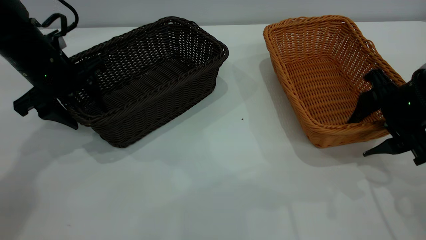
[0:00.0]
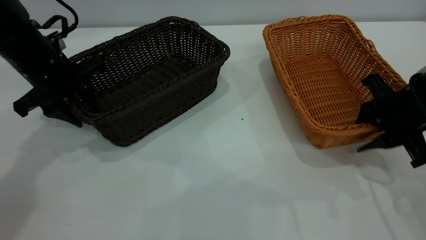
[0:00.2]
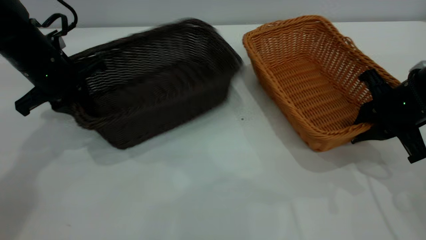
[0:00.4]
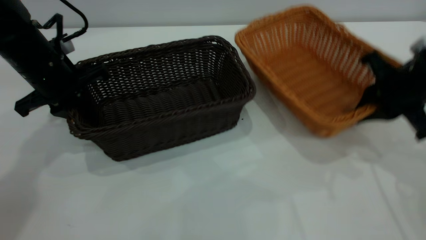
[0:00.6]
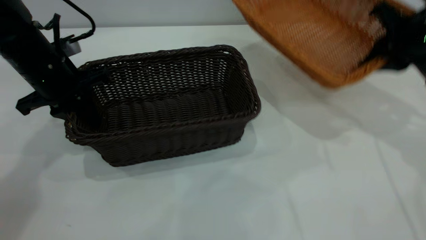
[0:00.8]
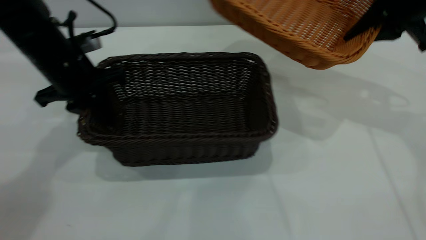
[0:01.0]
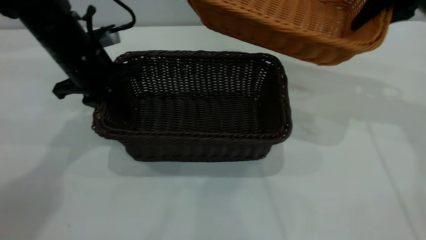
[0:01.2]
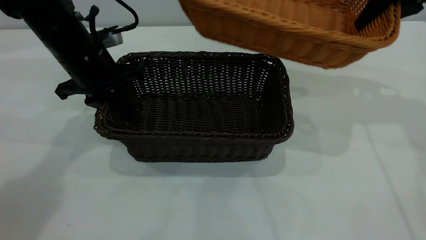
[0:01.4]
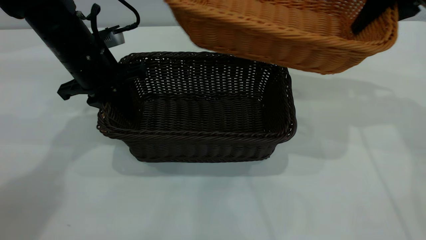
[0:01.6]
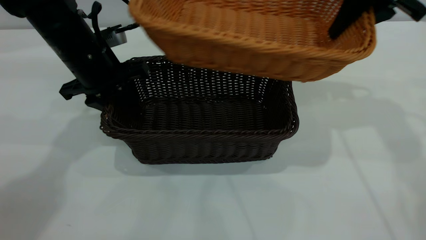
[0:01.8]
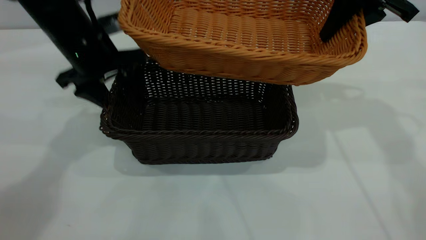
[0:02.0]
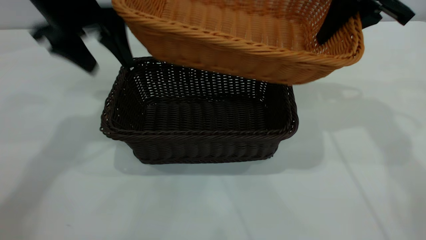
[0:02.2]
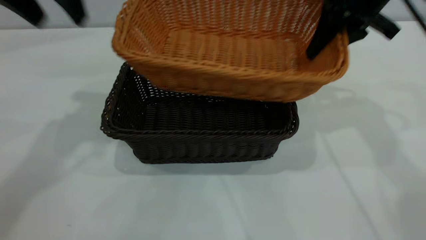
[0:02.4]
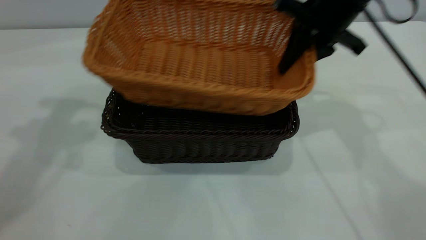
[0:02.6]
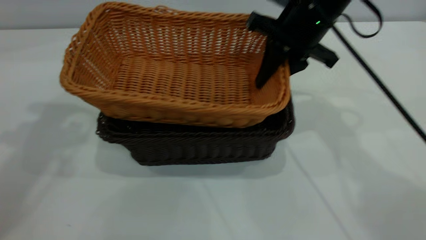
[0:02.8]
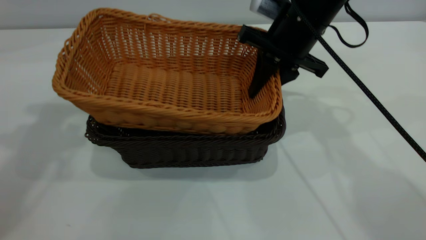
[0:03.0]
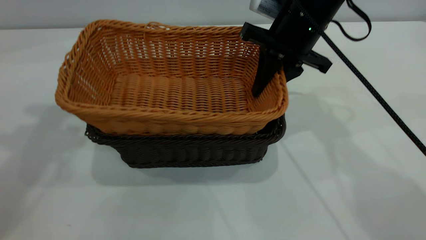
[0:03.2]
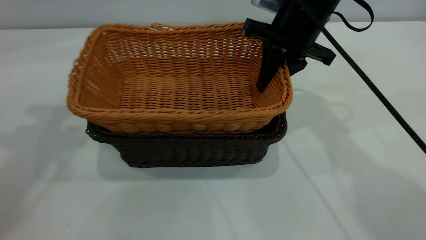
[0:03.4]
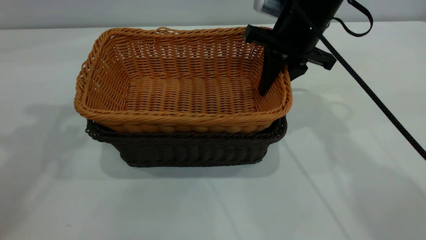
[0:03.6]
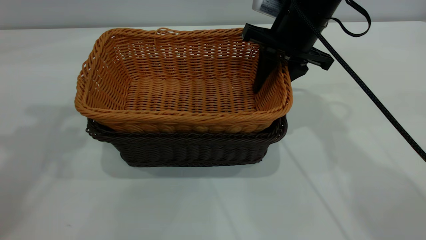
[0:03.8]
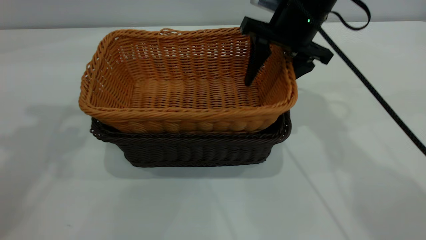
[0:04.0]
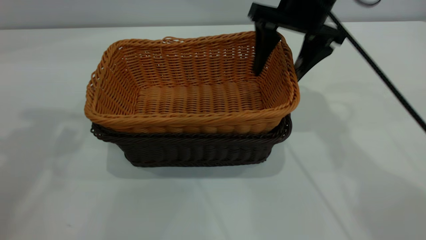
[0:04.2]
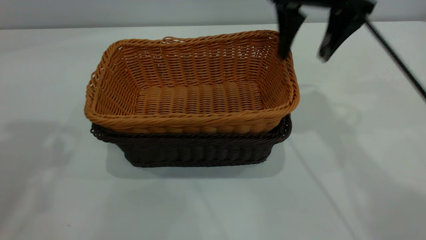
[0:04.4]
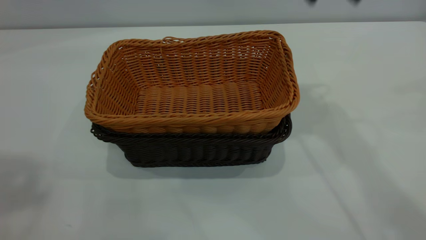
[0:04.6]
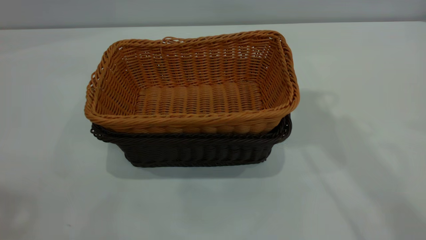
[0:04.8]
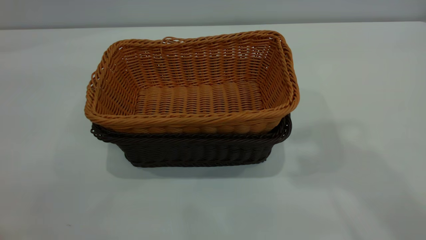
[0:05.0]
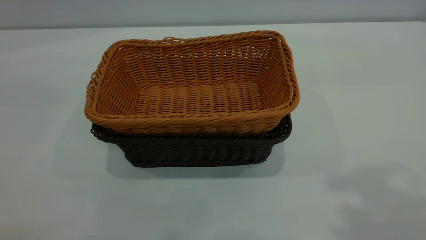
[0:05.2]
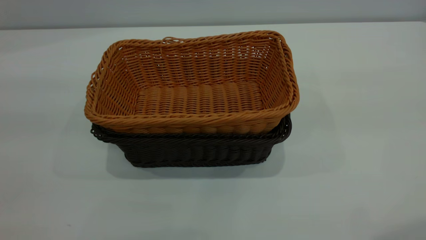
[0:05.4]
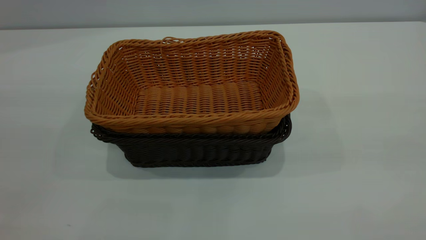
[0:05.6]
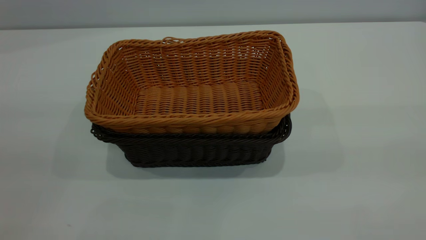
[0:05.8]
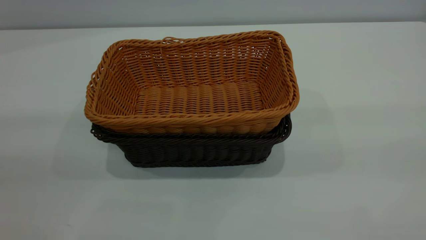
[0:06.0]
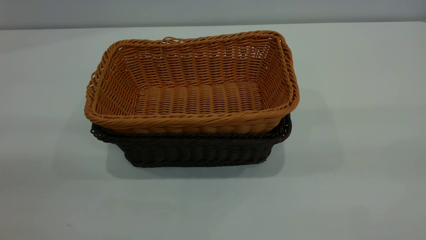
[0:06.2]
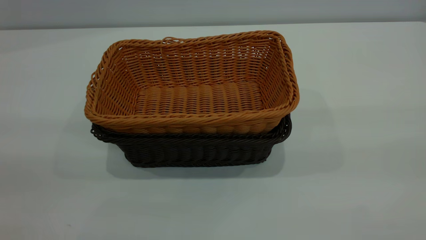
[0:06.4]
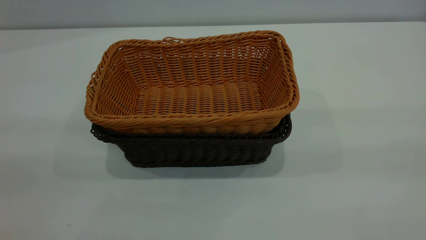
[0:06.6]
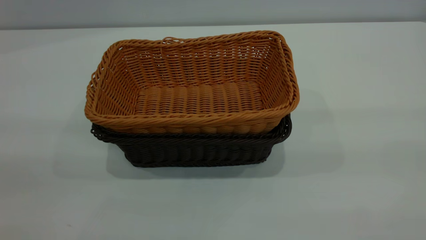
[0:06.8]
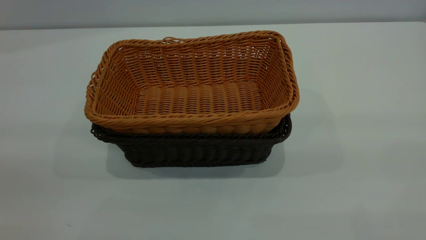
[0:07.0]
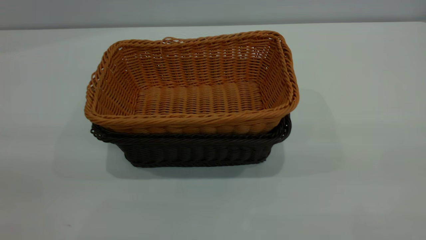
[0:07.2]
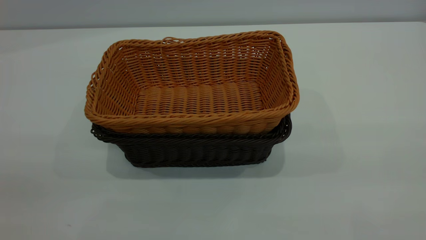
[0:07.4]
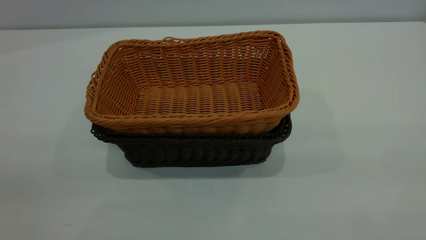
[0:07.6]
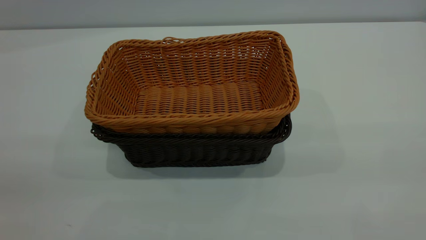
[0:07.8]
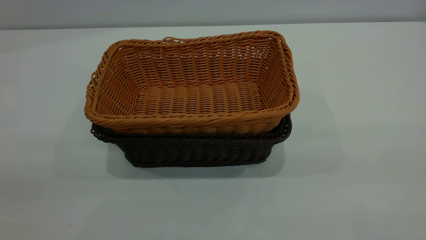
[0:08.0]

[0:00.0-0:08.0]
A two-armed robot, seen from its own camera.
Task of the whole recording: the left gripper grasp the black basket and place it in the center of the table, the right gripper grasp the brown basket and place it inside the black one.
Step, 0:00.8 to 0:02.0: Move the dark basket to the center of view.
Step, 0:02.2 to 0:04.4: Place the light basket on the dark basket.
0:00.0 to 0:01.6: The right gripper is displaced upward and forward by approximately 20 cm, and closes its fingers. The left gripper shifts some 5 cm to the right, and closes its fingers.
0:01.6 to 0:03.2: The right gripper goes about 15 cm to the left and downward, while the left gripper heads upward, covering some 25 cm, and opens.
0:03.2 to 0:04.8: The left gripper heads backward and upward, covering about 20 cm; the right gripper goes approximately 25 cm upward, and opens.

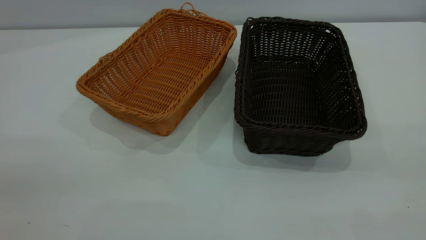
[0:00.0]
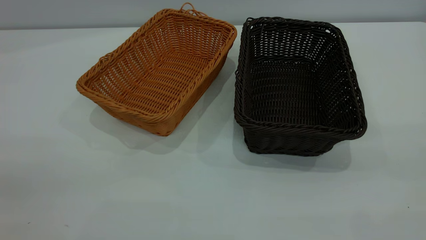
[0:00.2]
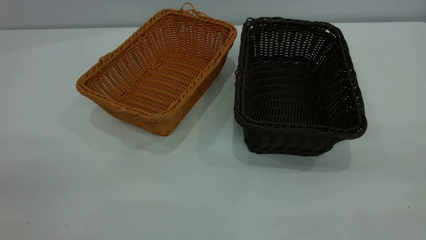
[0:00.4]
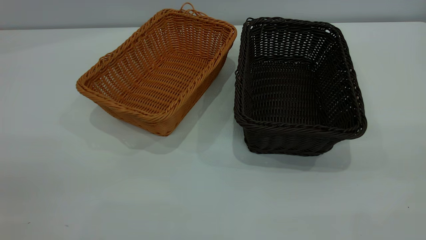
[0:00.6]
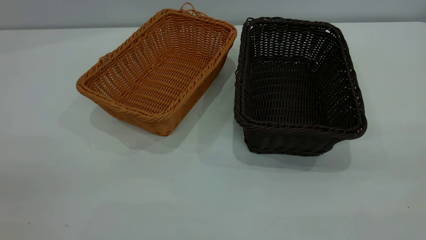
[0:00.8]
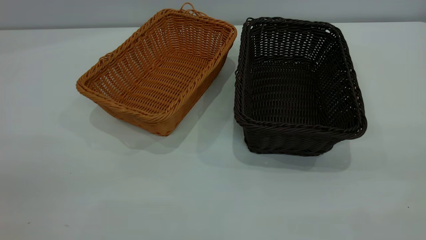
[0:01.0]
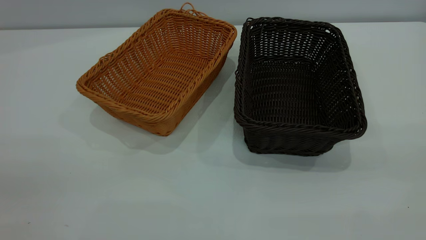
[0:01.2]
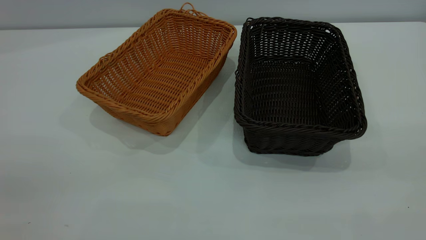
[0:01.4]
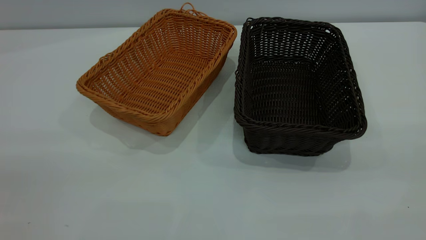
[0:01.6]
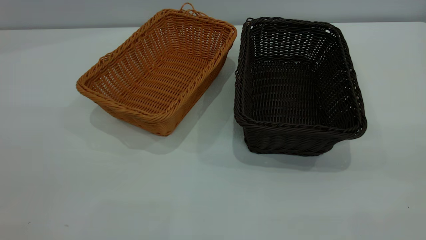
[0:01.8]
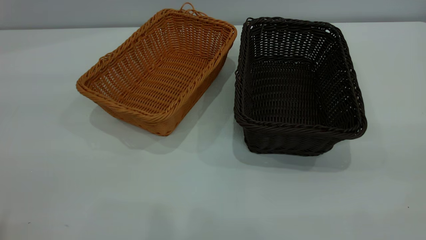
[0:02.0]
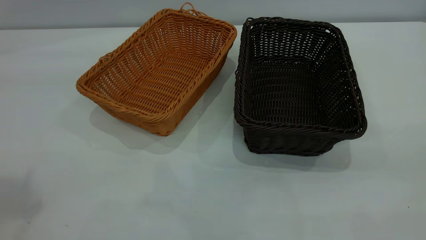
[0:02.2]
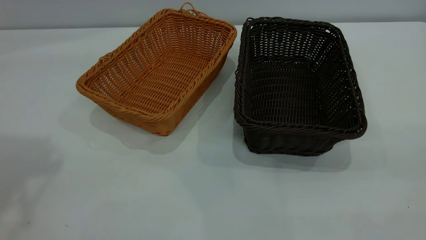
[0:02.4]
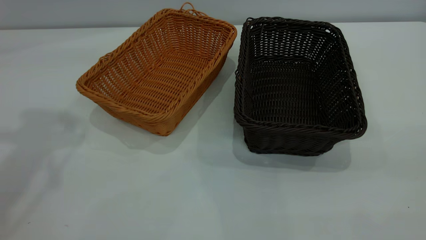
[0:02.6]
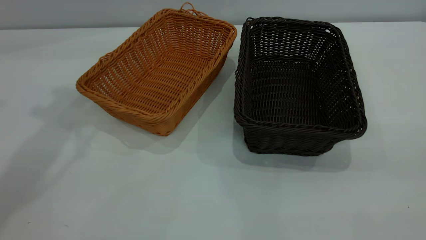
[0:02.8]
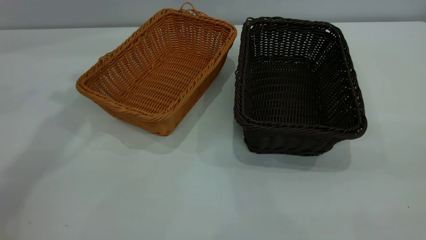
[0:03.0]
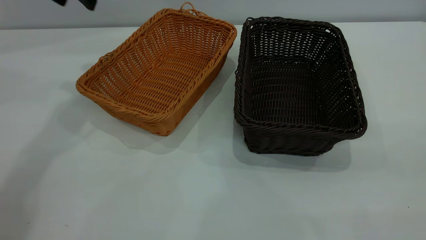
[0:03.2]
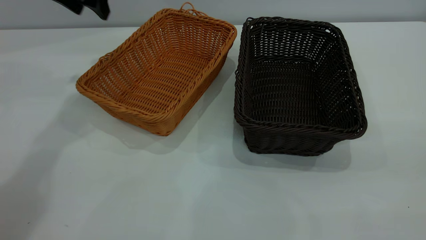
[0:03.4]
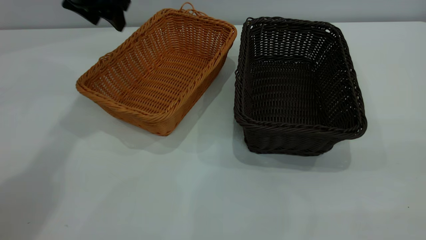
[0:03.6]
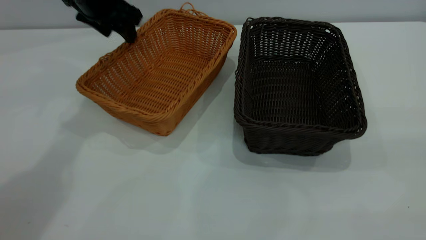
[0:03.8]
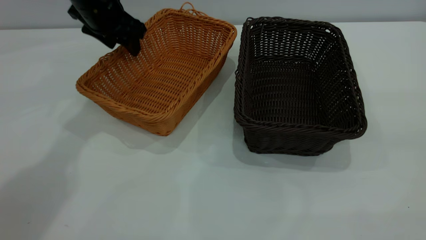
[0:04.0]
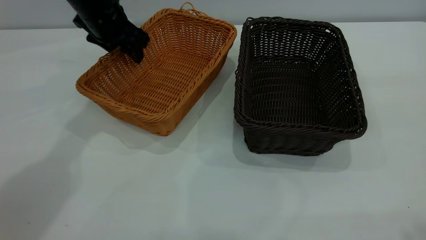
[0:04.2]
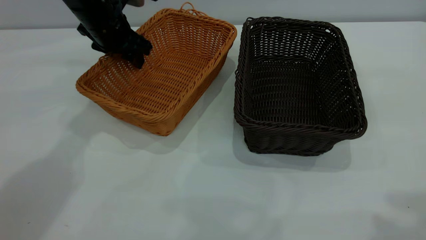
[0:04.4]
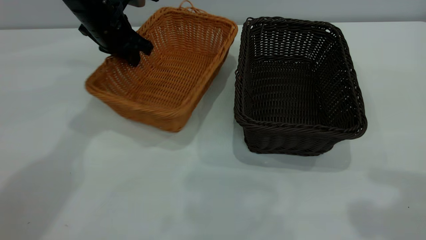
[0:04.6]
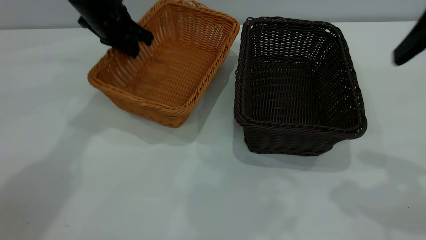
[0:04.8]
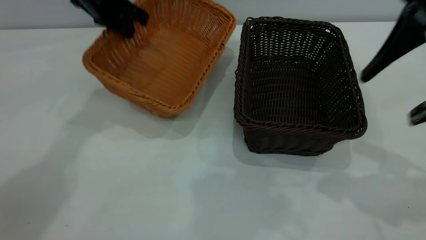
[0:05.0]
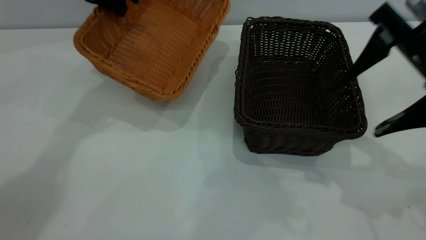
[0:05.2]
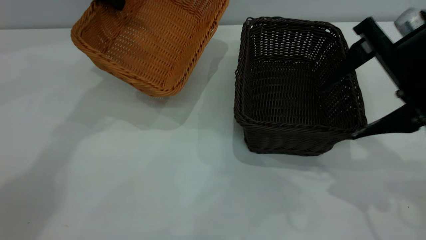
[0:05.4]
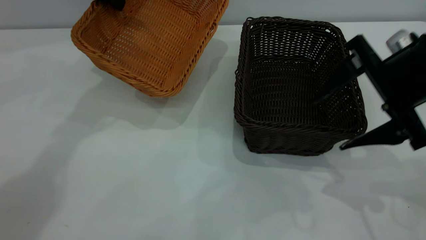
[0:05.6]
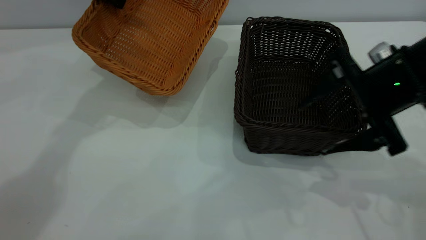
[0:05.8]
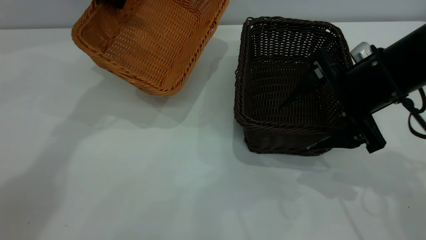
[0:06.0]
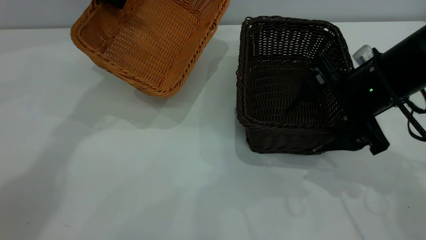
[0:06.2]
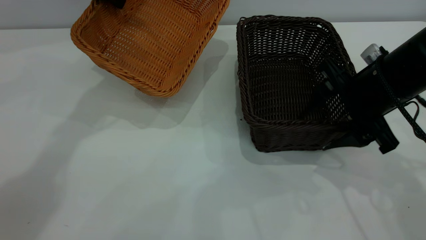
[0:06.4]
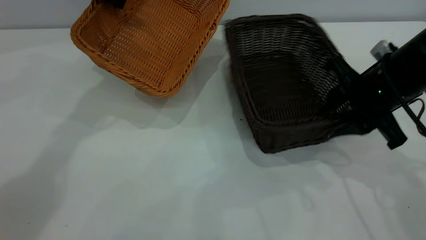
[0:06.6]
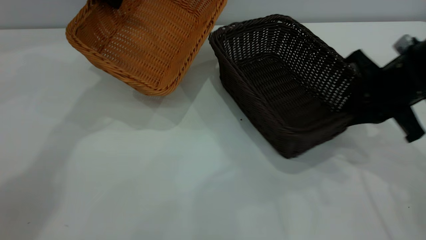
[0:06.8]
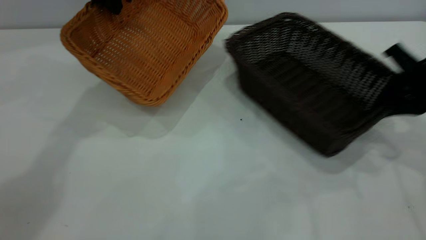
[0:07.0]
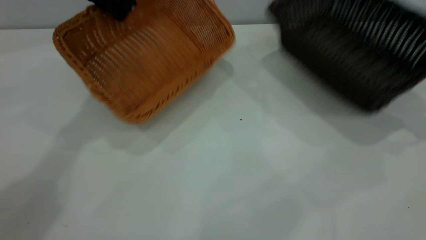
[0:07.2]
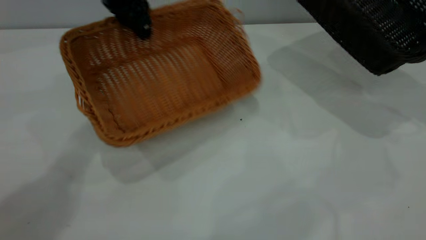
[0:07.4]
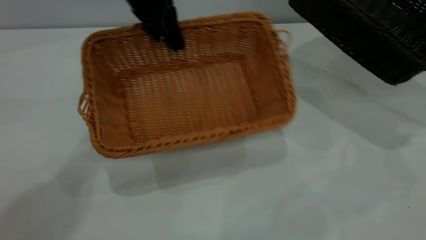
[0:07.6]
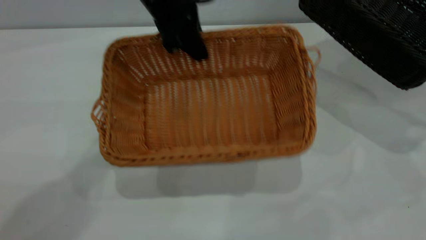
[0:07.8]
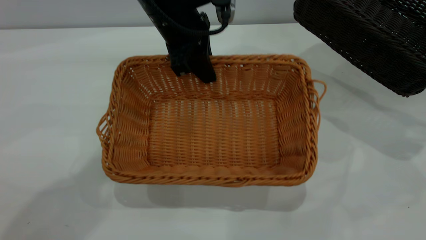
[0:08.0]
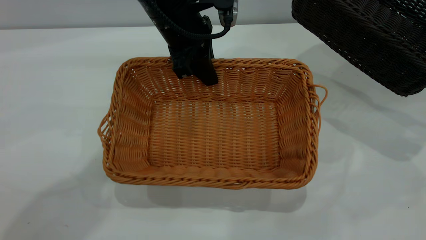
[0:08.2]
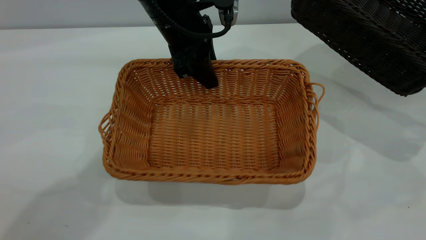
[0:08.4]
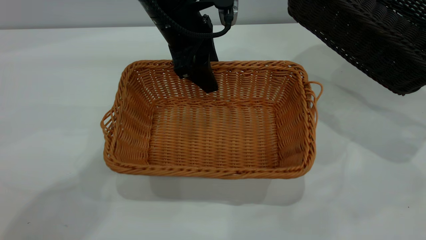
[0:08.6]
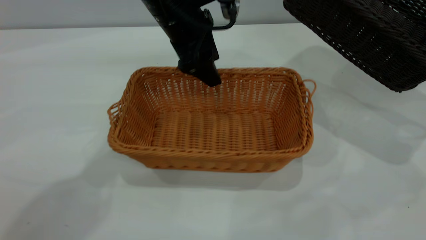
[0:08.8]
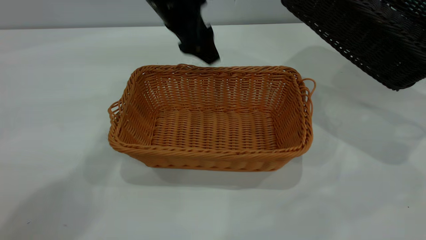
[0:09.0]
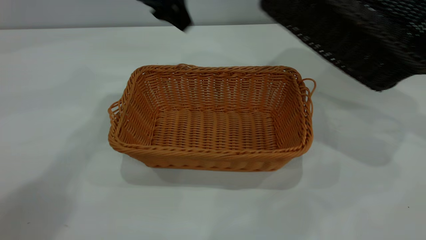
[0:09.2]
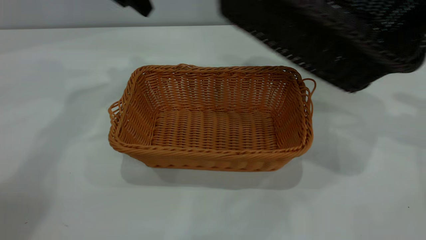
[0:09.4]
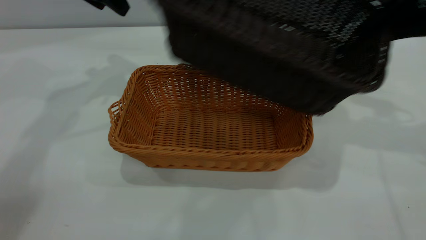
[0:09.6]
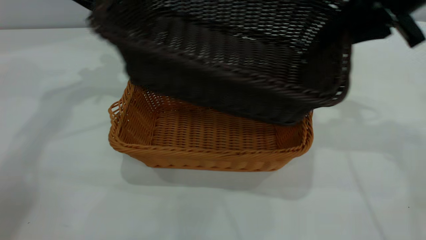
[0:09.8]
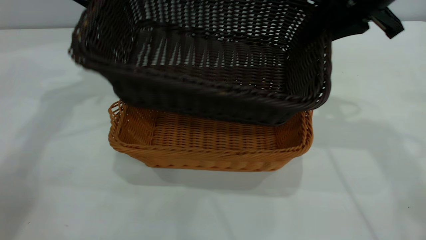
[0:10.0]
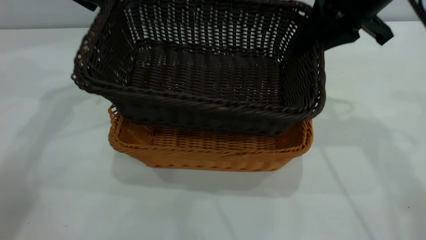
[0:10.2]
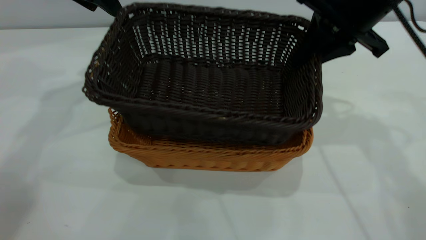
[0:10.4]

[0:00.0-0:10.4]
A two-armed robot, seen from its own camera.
Task of the whole recording: the left gripper grasp the brown basket and place it in the center of the table, the right gripper grasp the black basket and place it inside the brown one.
Step, 0:00.0 to 0:05.8: Pick up the light basket with the right gripper.
Step, 0:06.2 to 0:09.0: Place the light-colored basket in the center.
0:00.0 to 0:01.4: Neither gripper changes place.
0:03.0 to 0:04.4: The left gripper shifts some 15 cm downward.
0:04.4 to 0:06.0: The right gripper shifts some 25 cm downward and forward. The left gripper heads upward, covering about 10 cm, and closes.
0:06.0 to 0:07.4: The left gripper is displaced to the right by about 5 cm; the right gripper is displaced to the right by about 20 cm, and closes.
0:07.4 to 0:09.0: The left gripper opens up.
0:09.0 to 0:10.4: The left gripper goes some 15 cm to the left, while the right gripper moves to the left, approximately 25 cm.
